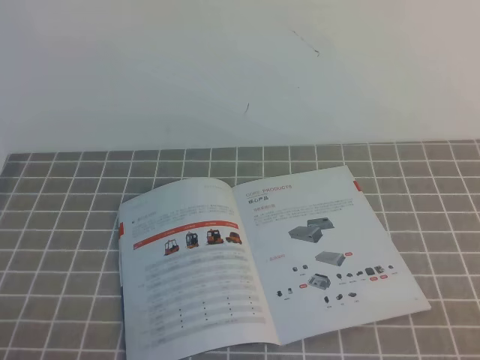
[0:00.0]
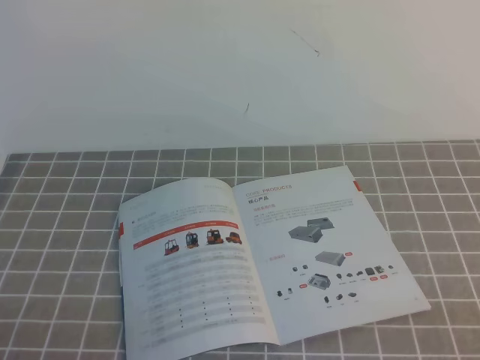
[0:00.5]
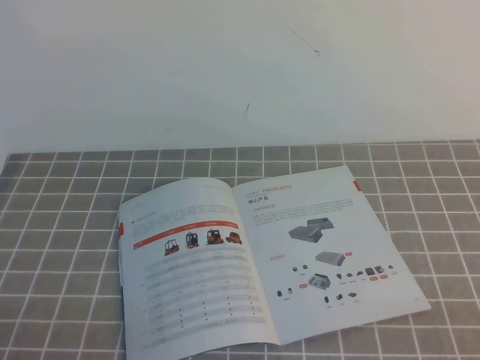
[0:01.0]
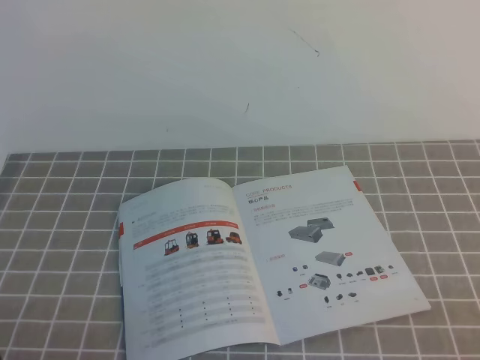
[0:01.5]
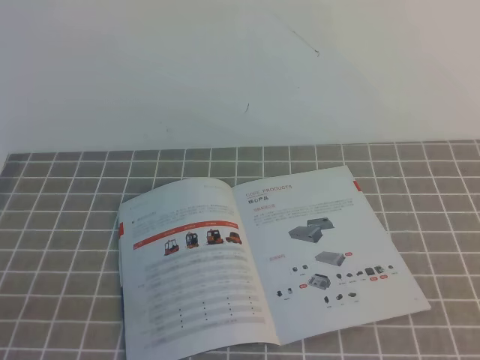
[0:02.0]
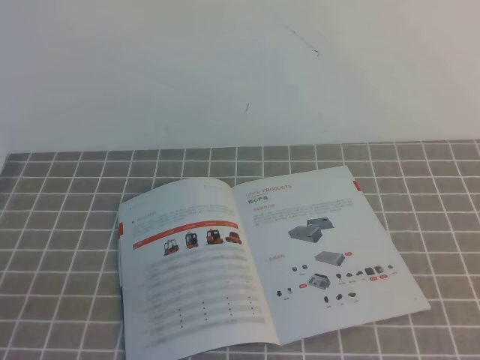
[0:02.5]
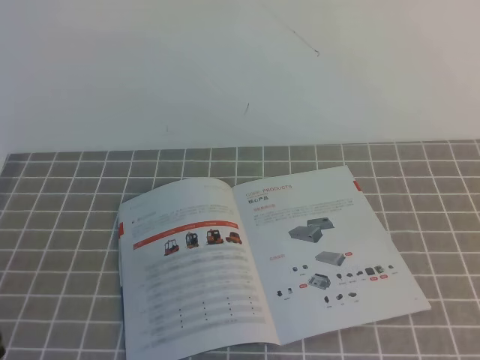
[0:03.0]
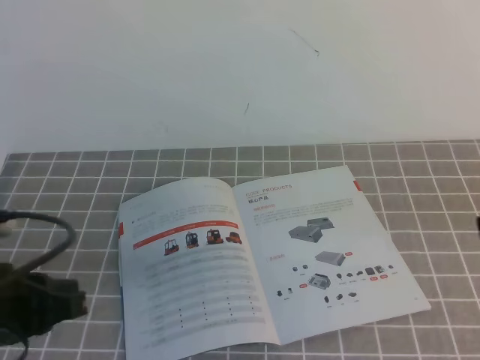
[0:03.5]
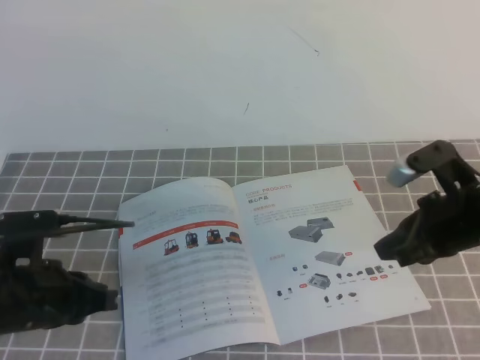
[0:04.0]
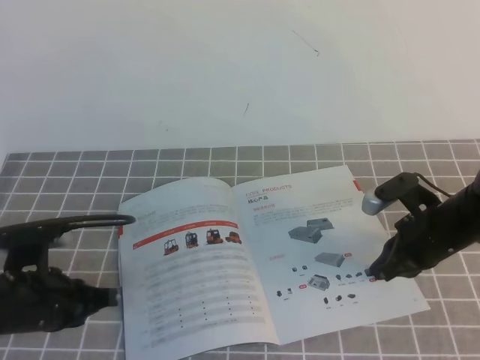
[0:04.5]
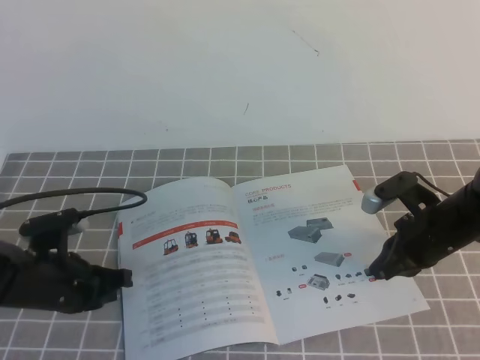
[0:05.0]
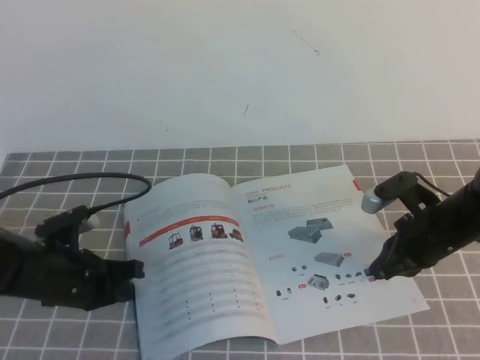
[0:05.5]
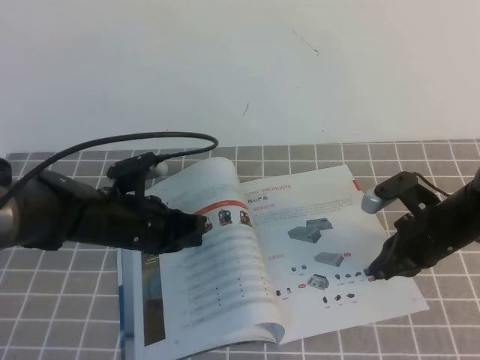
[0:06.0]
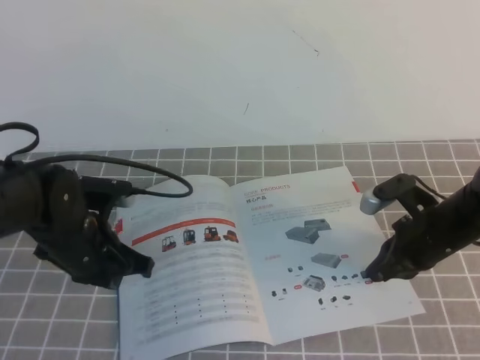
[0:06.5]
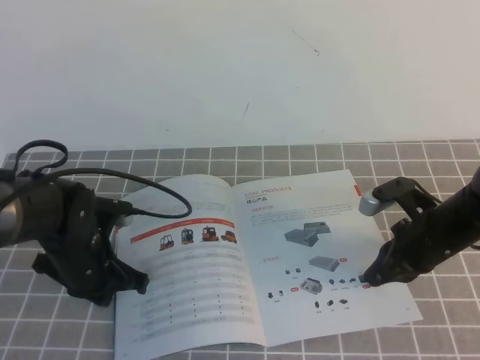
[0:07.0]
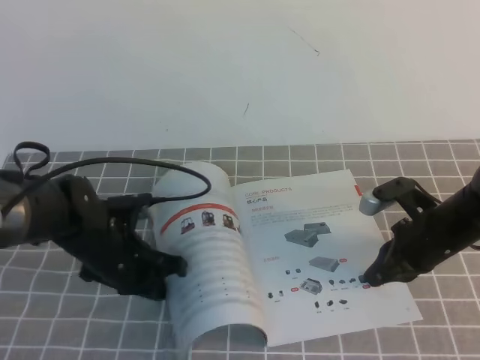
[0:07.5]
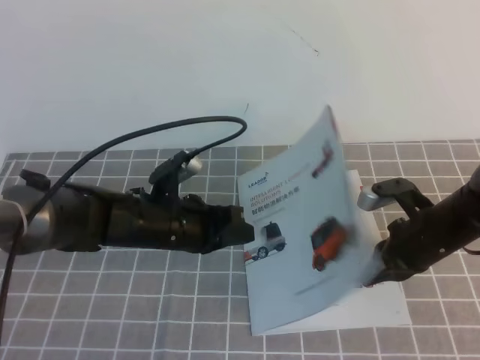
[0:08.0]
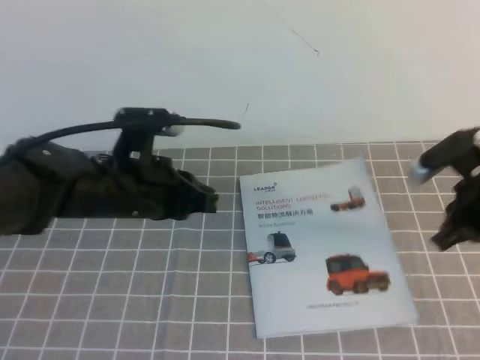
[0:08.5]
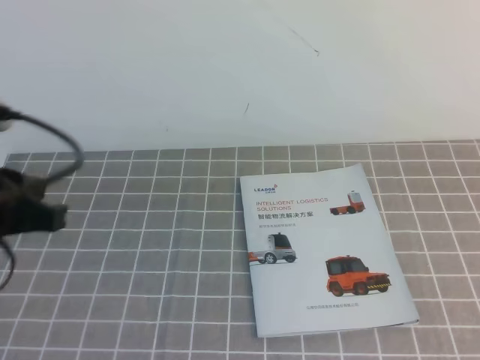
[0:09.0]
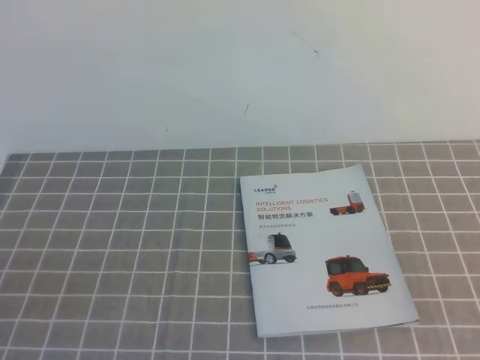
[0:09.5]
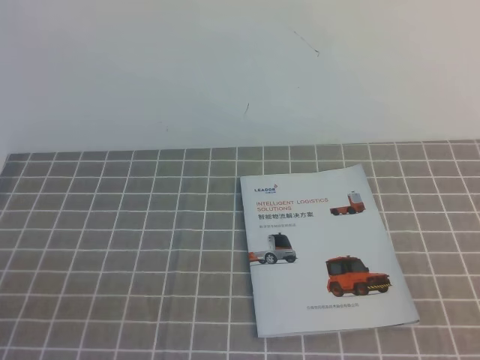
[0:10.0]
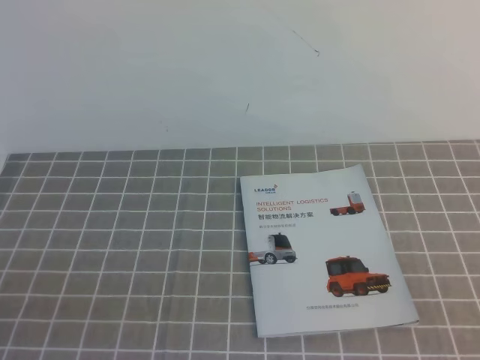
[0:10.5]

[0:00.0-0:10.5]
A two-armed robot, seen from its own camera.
Task of the whole recording: on the grey tablecloth, hold the book with one hand and close it with the other.
0:02.0 to 0:04.0: The right gripper is displaced forward by some 25 cm, while the left gripper travels forward by some 20 cm.
0:04.0 to 0:06.5: The left gripper is displaced forward by about 10 cm; the right gripper is displaced downward by some 10 cm.
0:06.5 to 0:08.5: Both grippers travel together upward, approximately 5 cm.
0:08.5 to 0:10.5: The right gripper moves backward, about 30 cm, while the left gripper heads backward and to the left, covering roughly 30 cm.
